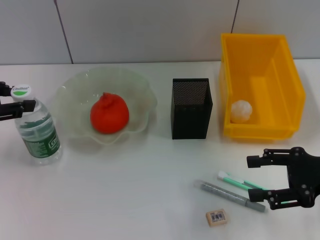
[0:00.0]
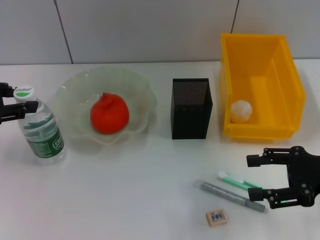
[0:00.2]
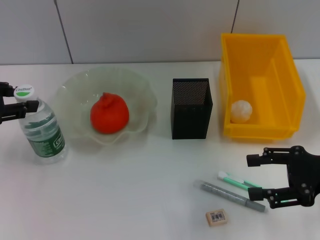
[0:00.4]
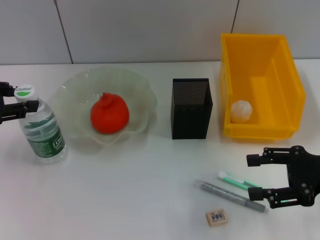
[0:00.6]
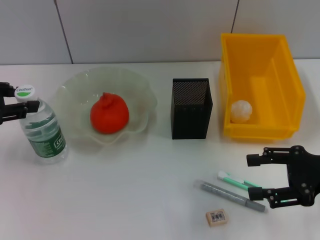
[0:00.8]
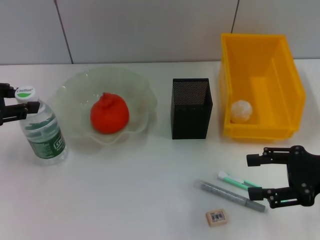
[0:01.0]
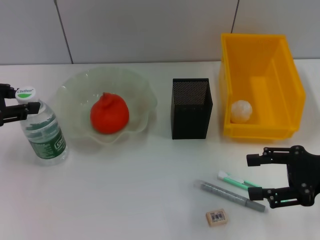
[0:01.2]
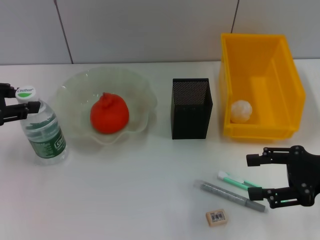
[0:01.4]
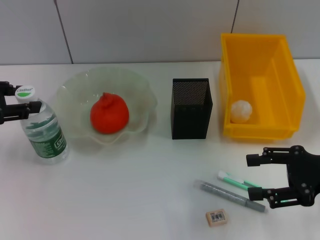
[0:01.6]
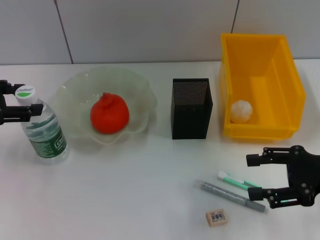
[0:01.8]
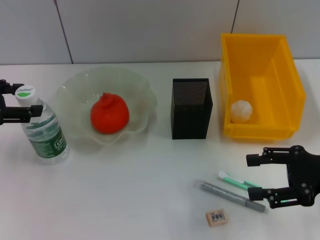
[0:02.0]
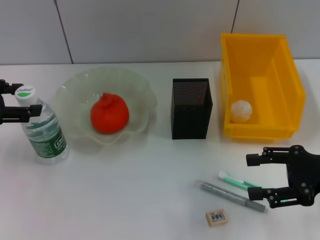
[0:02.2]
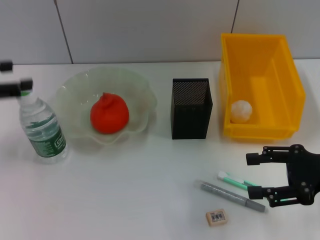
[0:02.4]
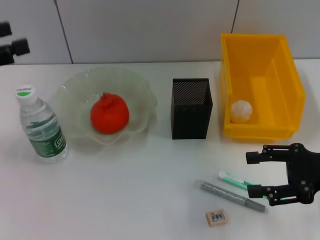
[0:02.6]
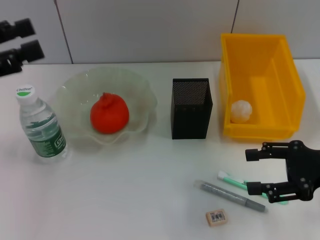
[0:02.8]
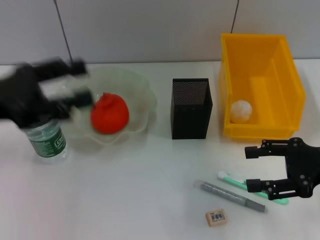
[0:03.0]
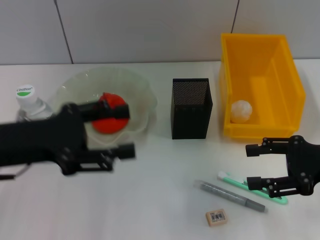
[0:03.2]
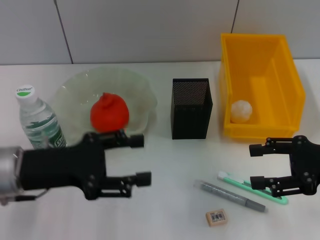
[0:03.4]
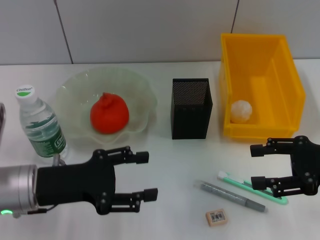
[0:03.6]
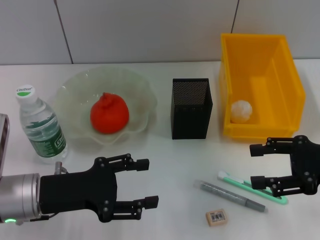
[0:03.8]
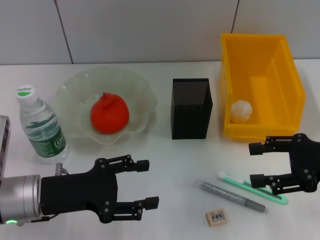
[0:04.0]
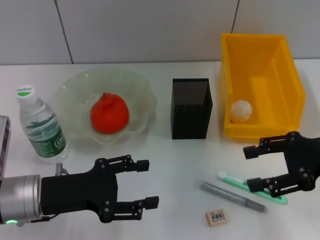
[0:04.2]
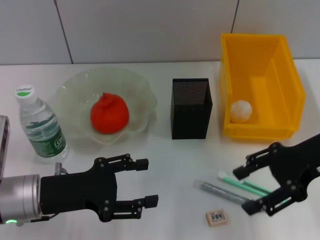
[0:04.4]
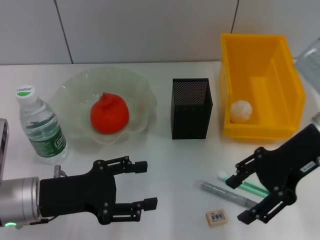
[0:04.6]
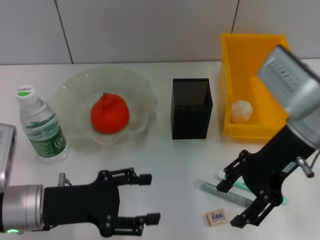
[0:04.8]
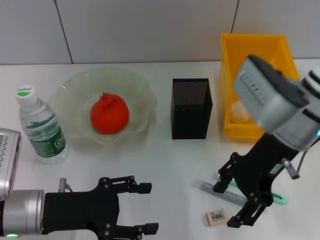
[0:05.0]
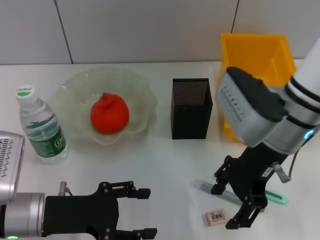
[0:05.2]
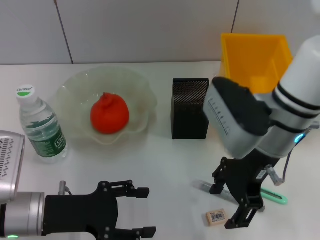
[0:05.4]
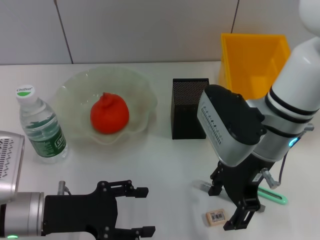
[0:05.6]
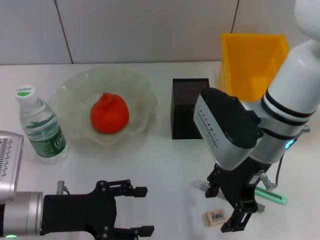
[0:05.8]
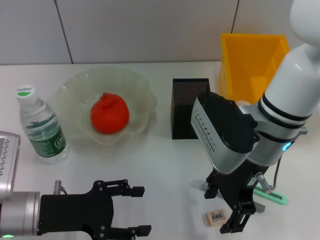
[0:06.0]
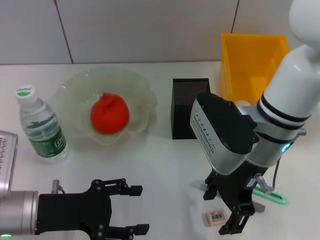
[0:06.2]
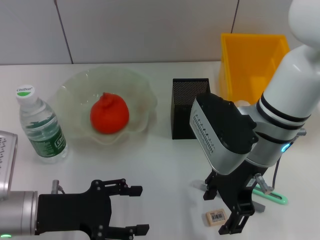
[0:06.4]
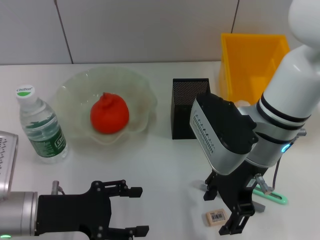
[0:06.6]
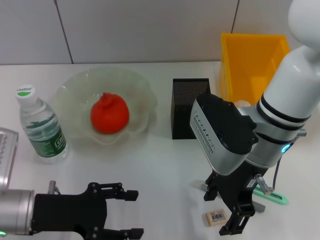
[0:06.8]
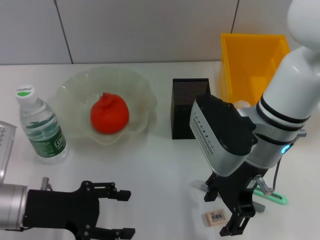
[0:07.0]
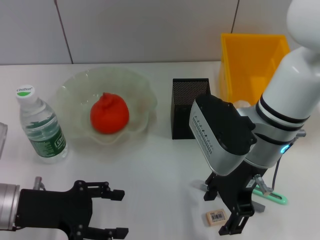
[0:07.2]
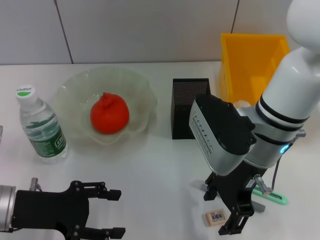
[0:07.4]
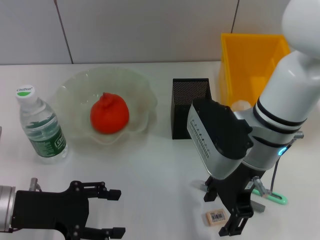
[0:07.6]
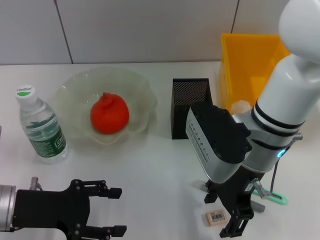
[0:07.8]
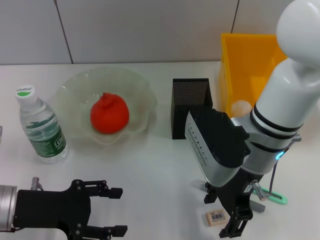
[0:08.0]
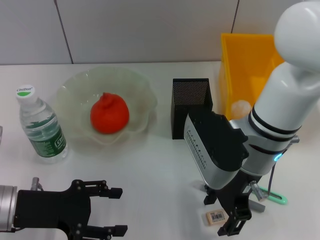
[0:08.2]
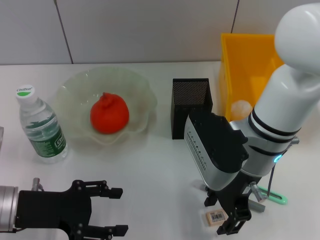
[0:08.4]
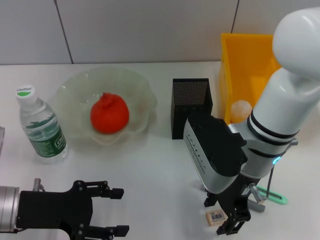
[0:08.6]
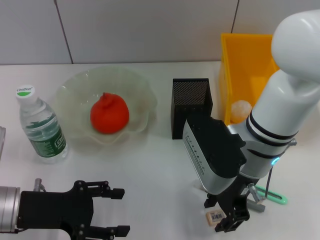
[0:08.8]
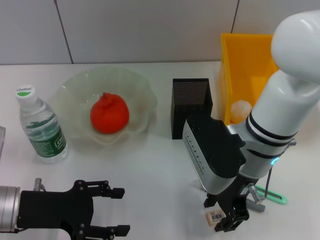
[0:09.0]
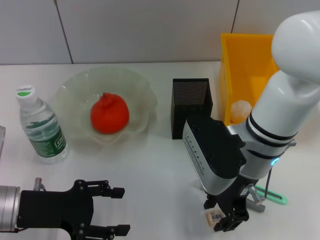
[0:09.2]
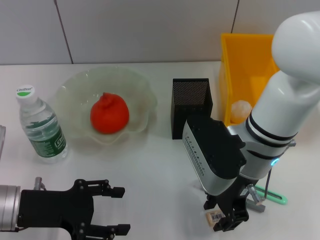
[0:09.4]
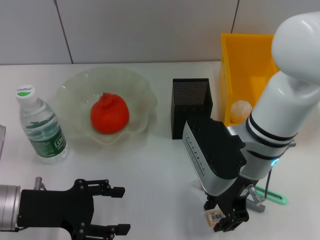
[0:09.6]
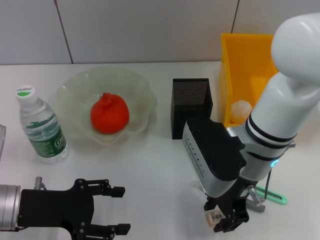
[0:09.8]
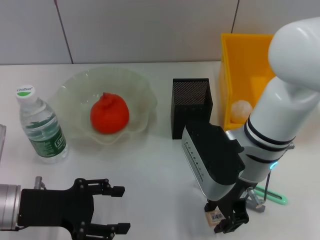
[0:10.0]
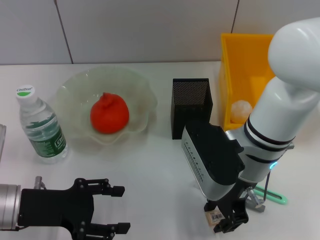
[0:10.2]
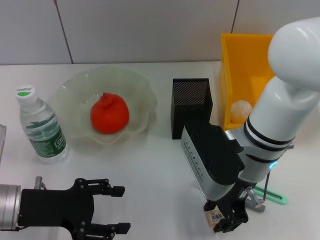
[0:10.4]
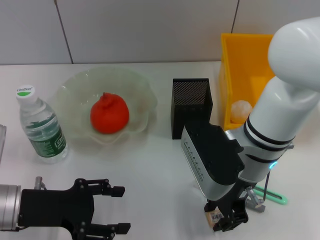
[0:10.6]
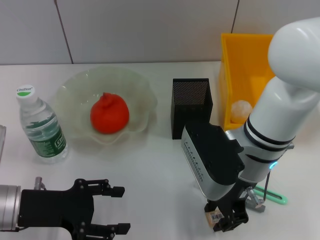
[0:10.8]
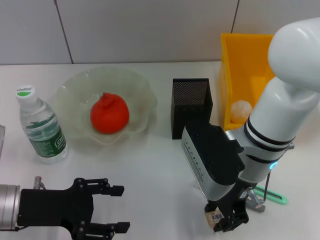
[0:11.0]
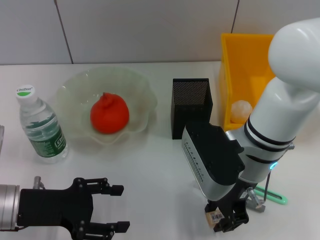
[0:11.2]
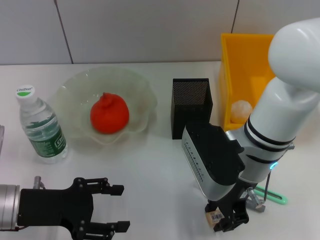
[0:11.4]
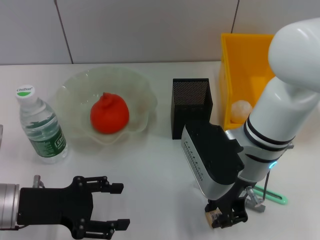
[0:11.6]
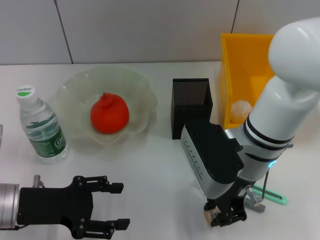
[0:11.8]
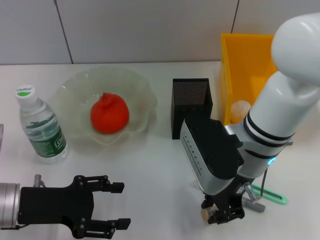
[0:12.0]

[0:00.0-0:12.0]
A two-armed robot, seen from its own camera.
Step, 0:00.0 to 0:02.4: Place the water bottle on the table with the left hand.
Step, 0:02.6 to 0:11.4: Grab the eraser with the right hand.
0:00.0 to 0:01.6: The two grippers keep their place.
0:01.6 to 0:03.0: The left gripper moves to the right, about 5 cm, and opens up.
0:03.0 to 0:04.4: The right gripper changes place by about 5 cm, while the left gripper is displaced downward and to the right by roughly 15 cm.
0:04.4 to 0:06.0: The right gripper travels to the left by some 15 cm.
0:06.0 to 0:07.6: The grippers make only small movements.
0:07.6 to 0:09.0: The right gripper closes.
0:09.0 to 0:12.0: Neither gripper changes place.

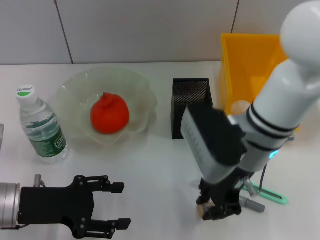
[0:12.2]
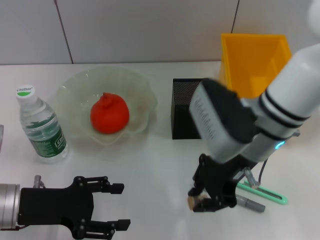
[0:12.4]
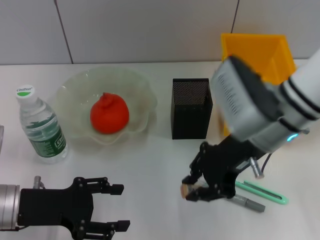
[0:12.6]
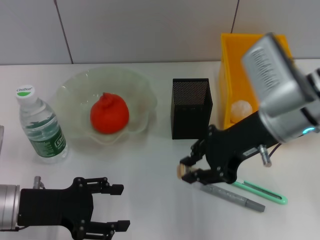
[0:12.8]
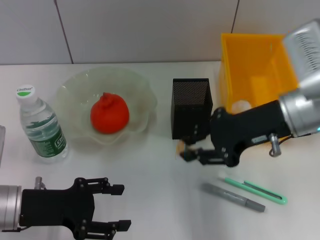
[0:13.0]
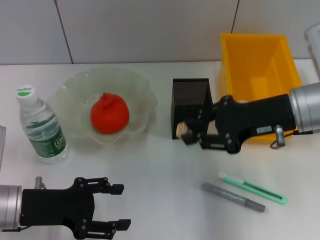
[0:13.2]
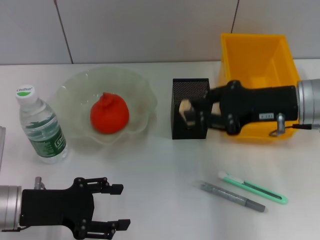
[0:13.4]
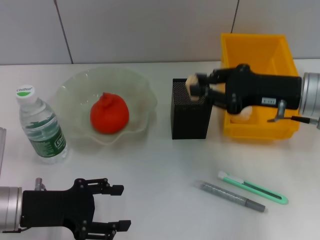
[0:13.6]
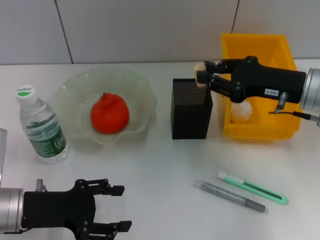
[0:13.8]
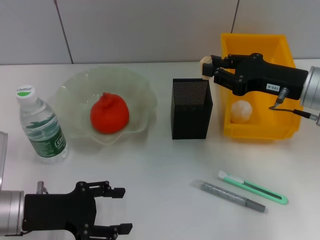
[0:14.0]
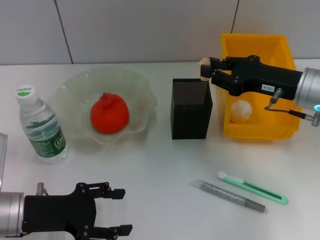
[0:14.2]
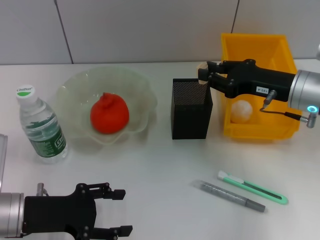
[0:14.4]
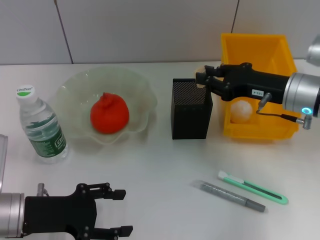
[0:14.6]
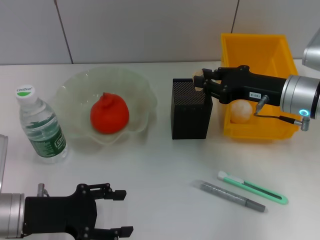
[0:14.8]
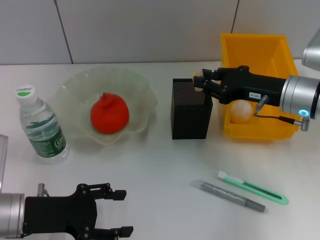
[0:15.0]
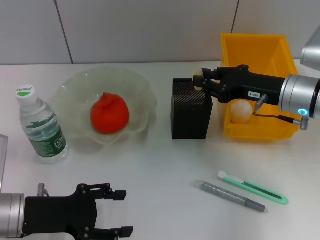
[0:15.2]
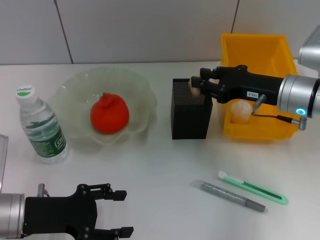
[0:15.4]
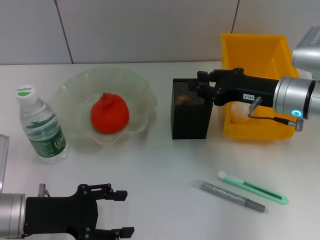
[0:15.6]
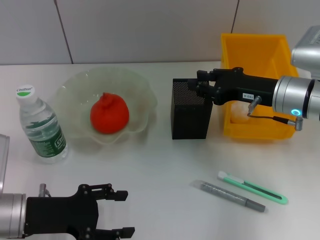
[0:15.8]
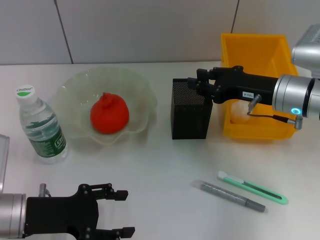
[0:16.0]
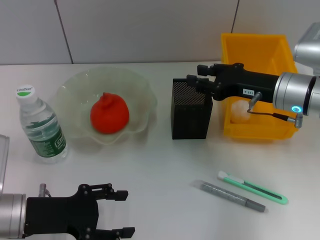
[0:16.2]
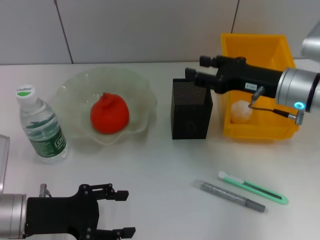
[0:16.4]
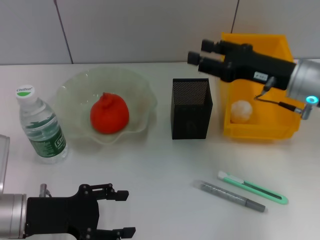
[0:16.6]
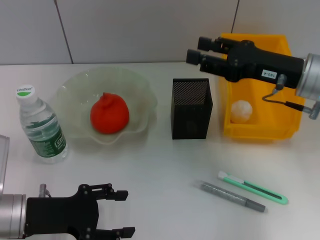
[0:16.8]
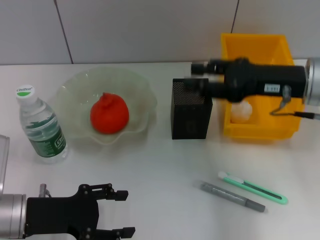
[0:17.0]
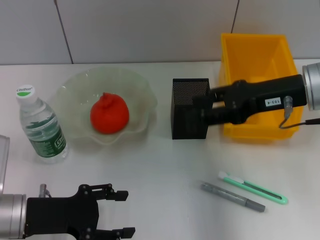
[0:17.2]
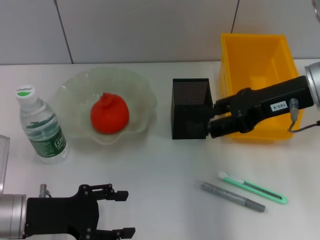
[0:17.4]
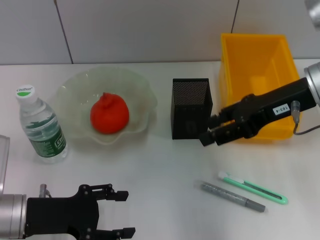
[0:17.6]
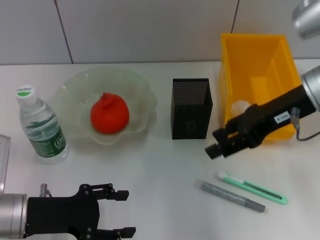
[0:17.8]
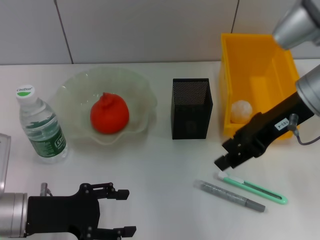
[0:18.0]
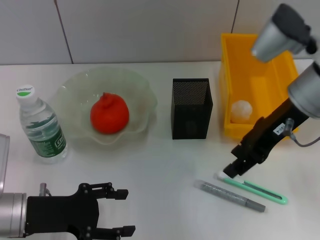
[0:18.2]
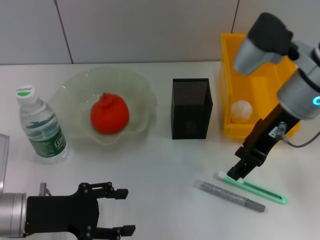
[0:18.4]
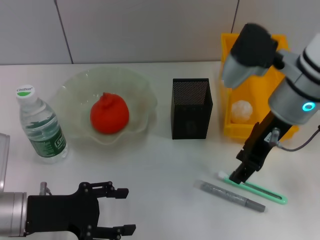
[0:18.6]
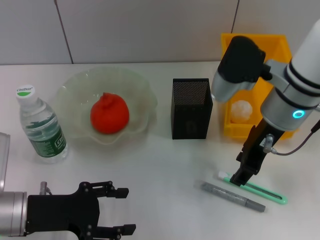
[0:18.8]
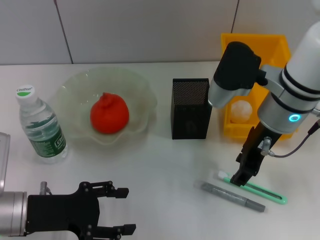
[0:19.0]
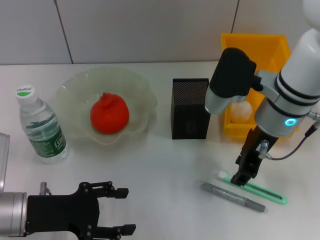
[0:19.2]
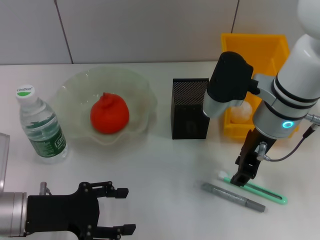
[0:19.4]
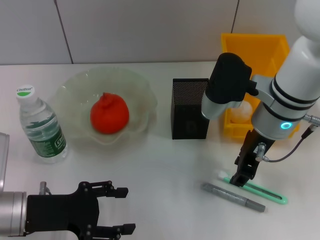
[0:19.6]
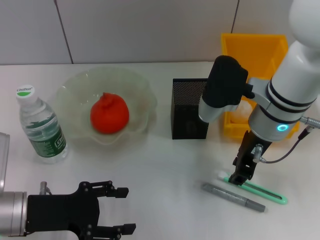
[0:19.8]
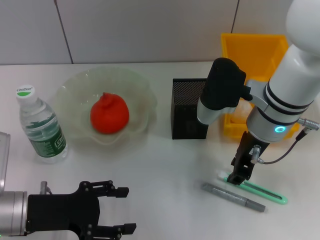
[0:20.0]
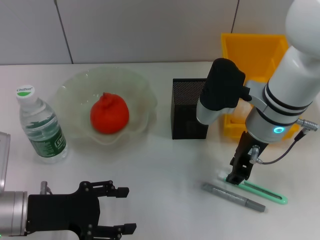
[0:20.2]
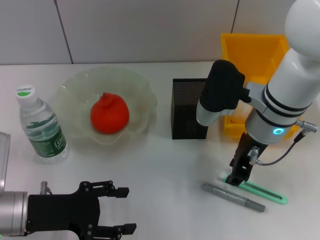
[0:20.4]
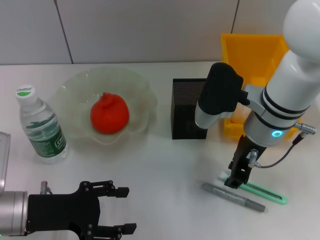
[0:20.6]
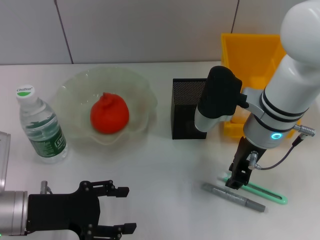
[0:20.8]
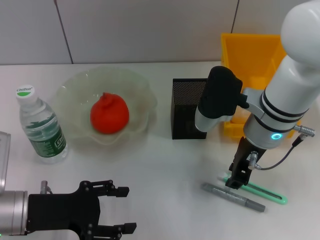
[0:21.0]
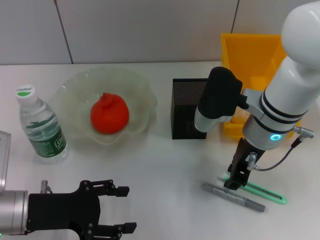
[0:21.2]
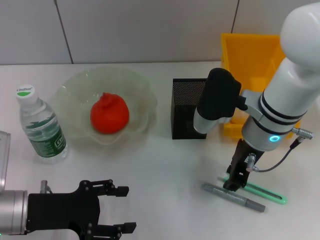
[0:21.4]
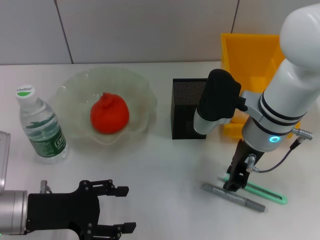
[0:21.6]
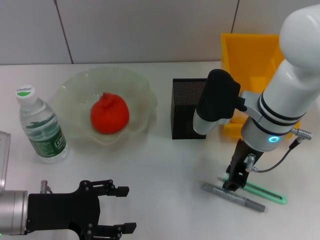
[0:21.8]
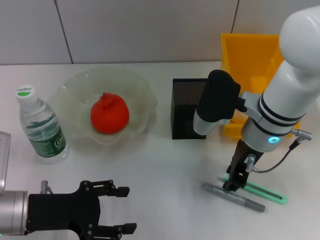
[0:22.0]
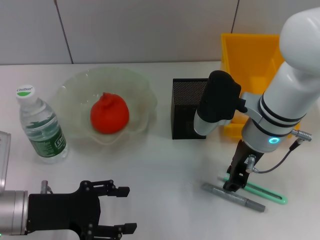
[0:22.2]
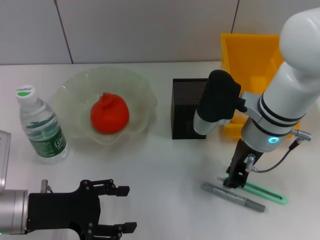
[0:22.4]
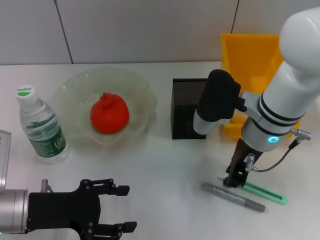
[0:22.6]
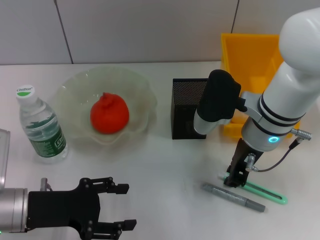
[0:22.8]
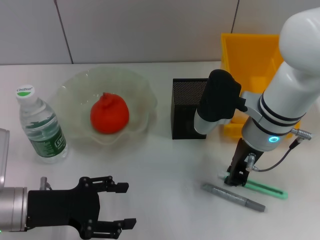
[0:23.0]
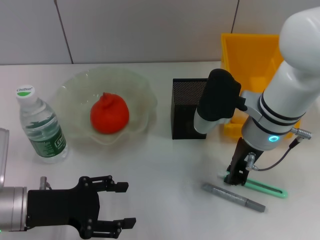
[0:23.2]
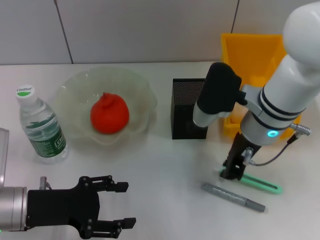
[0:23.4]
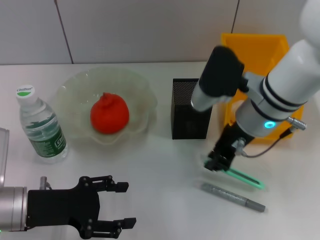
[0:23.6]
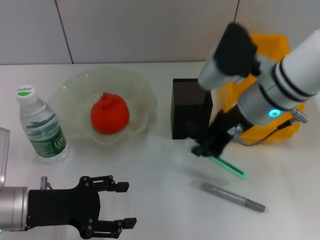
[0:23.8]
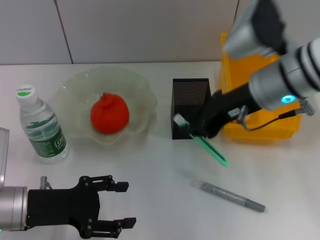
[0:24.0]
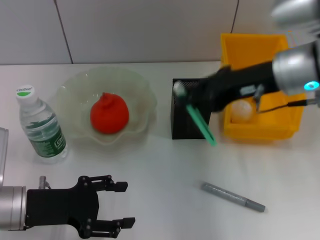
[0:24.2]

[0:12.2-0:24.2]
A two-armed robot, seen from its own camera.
Step, 0:12.2 to 0:16.2: Put the eraser into the pen holder with the right hand.
Step, 0:16.4 to 0:23.2: Grab the blue utility knife with the right hand.
0:12.2 to 0:13.8: The right gripper goes approximately 15 cm to the right.
0:13.8 to 0:15.2: There are only small adjustments of the grippers.
0:15.2 to 0:16.6: The right gripper opens.
0:16.6 to 0:18.2: The right gripper goes some 5 cm upward.
0:18.2 to 0:19.8: The right gripper shifts some 10 cm downward and to the left.
0:19.8 to 0:21.2: There are only small adjustments of the grippers.
0:21.2 to 0:22.6: Neither gripper changes place.
0:22.6 to 0:24.2: The right gripper travels upward and to the right by roughly 10 cm.
